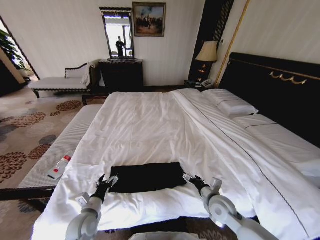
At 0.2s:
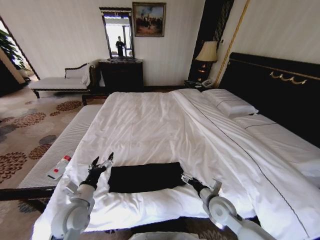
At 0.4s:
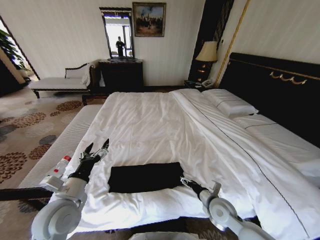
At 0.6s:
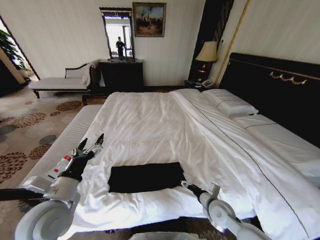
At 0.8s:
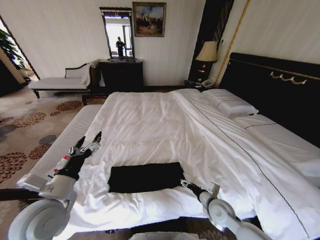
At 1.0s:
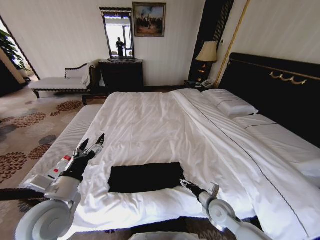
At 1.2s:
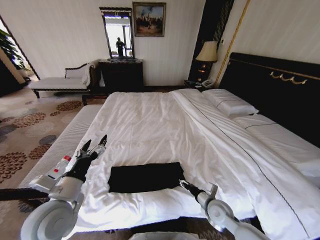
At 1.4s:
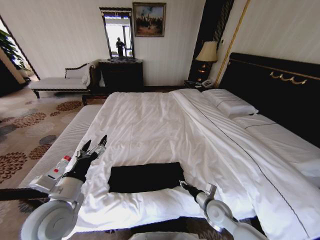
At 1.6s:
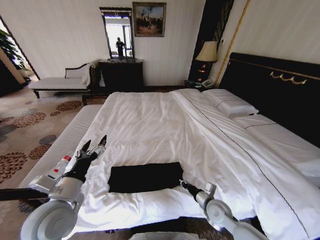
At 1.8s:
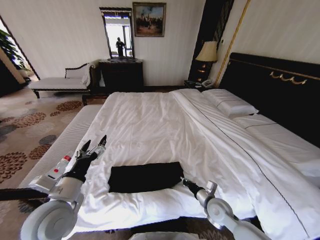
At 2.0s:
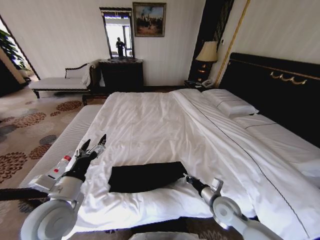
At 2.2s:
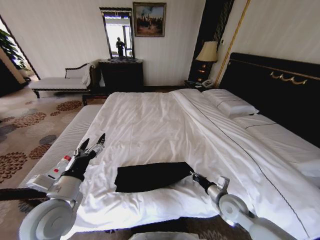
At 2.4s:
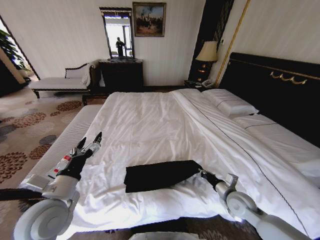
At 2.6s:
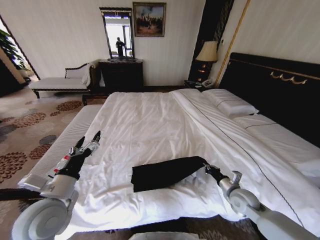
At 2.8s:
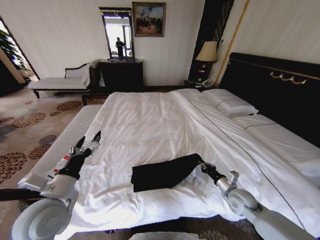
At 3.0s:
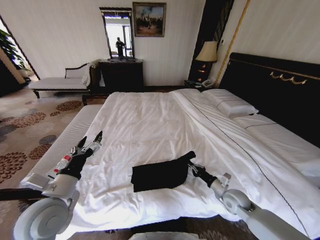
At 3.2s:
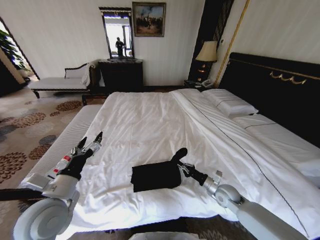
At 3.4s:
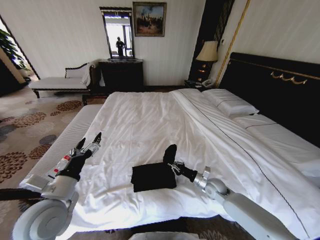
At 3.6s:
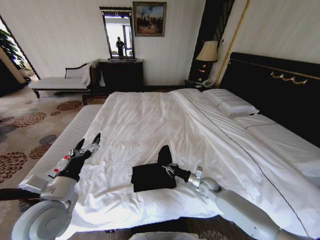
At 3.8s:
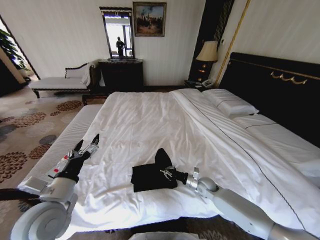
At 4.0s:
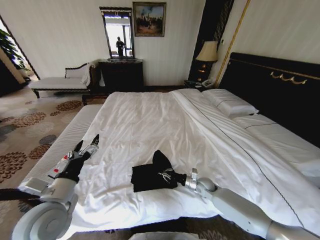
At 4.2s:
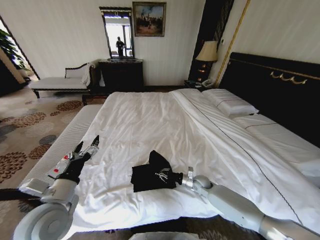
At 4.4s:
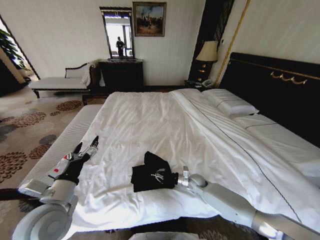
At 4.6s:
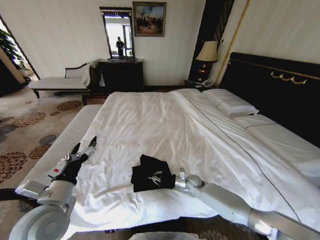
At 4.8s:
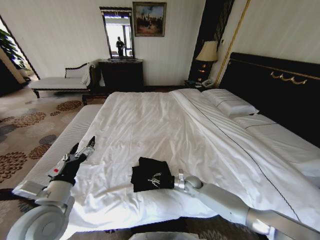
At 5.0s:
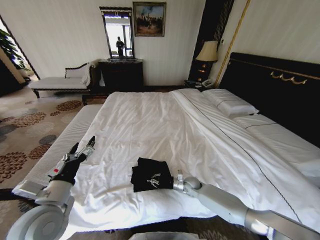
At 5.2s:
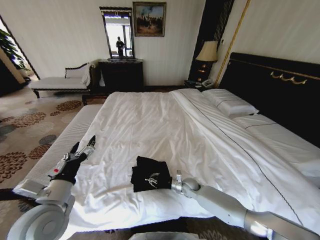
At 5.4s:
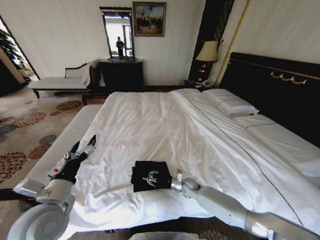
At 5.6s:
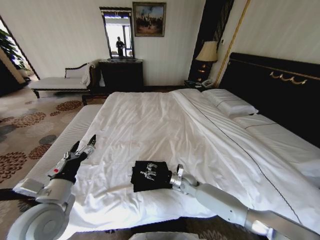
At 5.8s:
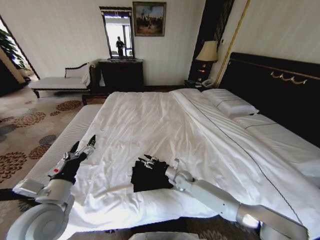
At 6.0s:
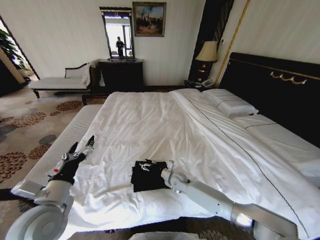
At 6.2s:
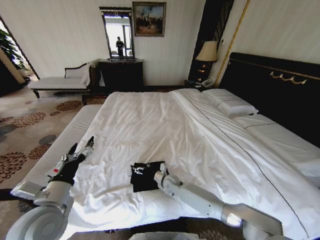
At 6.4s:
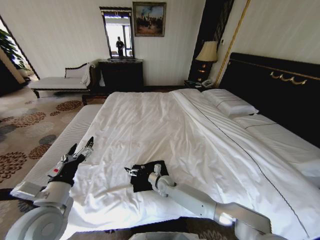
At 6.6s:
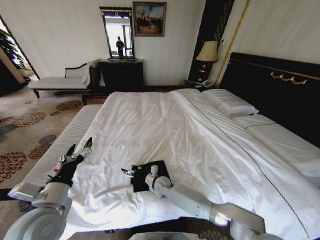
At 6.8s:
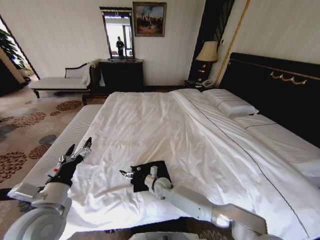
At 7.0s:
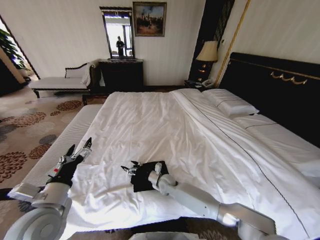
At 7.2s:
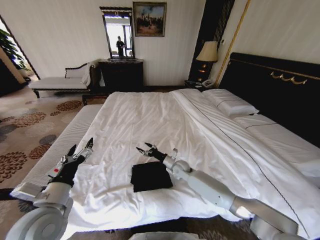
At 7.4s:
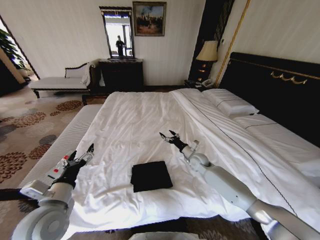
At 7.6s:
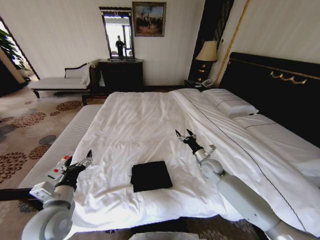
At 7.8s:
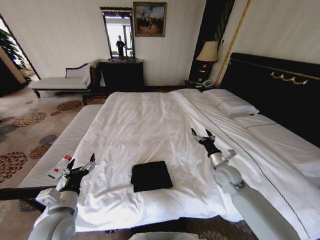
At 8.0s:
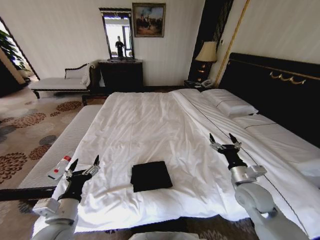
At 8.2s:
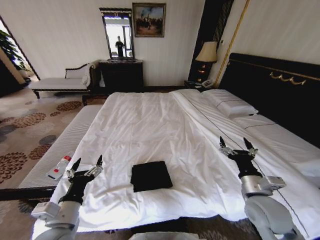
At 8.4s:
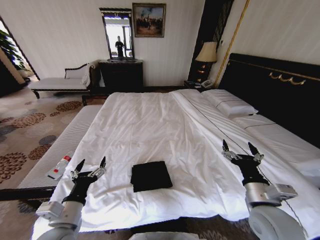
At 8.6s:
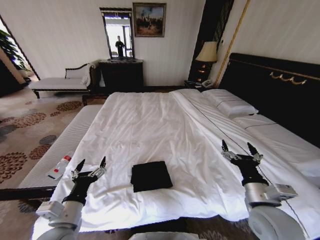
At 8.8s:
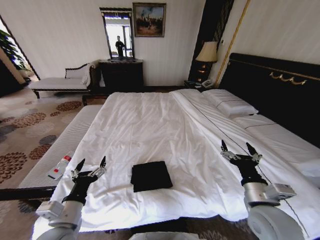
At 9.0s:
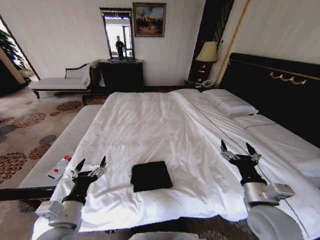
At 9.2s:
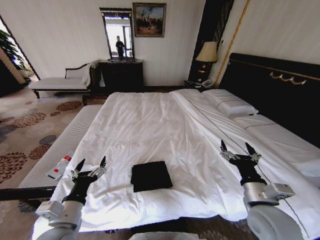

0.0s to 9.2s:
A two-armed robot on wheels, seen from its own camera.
Task of the whole recording: Fold the clothes on the bed.
0.0s to 1.6s: The right gripper closes up. The left gripper heads upward, covering roughly 20 cm.
1.6s to 3.0s: The right gripper goes some 10 cm to the right.
3.0s to 4.6s: The right gripper heads to the left, forward and downward, covering approximately 20 cm.
4.6s to 6.2s: The right gripper travels to the left by some 15 cm, and opens.
6.2s to 7.6s: The right gripper is displaced to the right and upward by some 20 cm.
7.6s to 9.2s: The left gripper heads backward, covering roughly 5 cm. The right gripper shifts roughly 25 cm backward and upward.

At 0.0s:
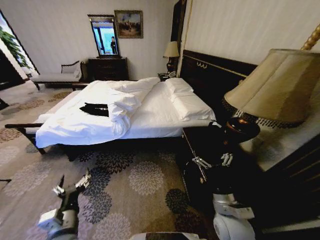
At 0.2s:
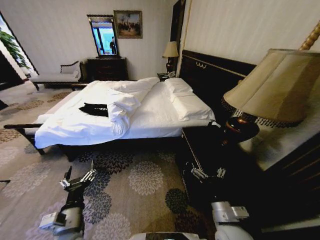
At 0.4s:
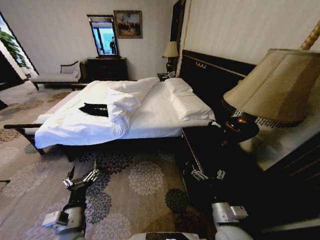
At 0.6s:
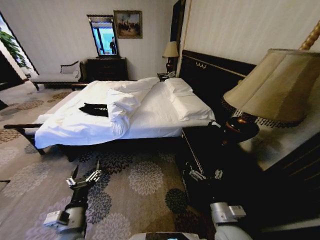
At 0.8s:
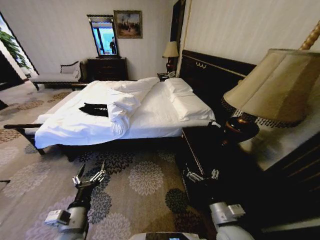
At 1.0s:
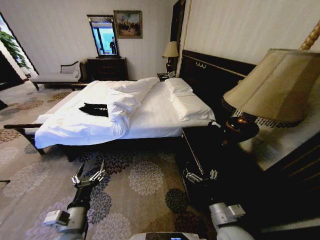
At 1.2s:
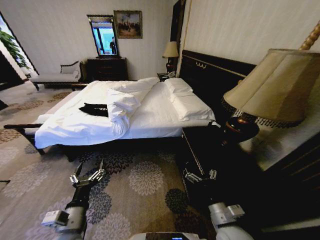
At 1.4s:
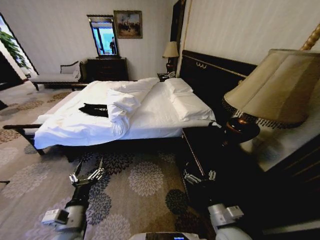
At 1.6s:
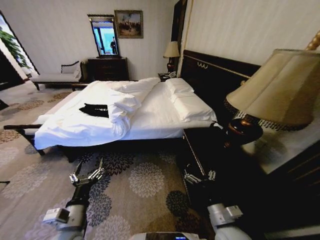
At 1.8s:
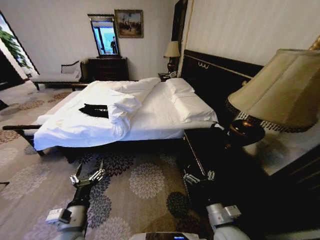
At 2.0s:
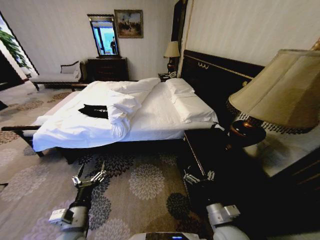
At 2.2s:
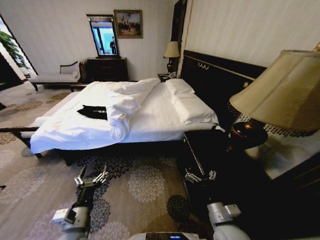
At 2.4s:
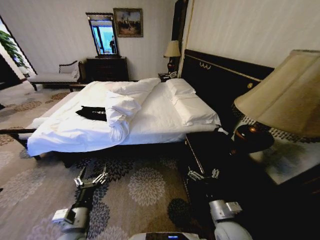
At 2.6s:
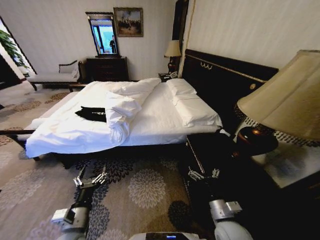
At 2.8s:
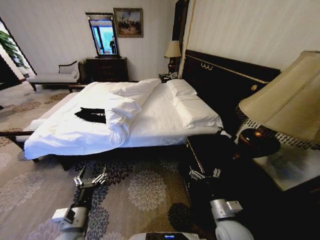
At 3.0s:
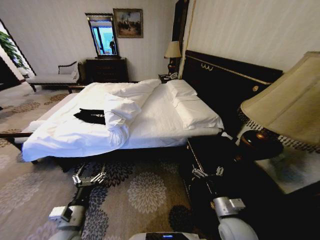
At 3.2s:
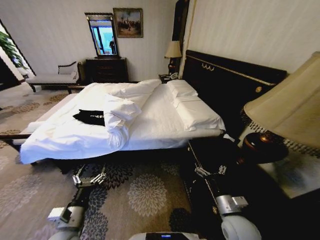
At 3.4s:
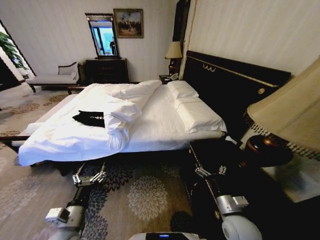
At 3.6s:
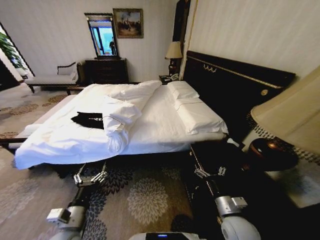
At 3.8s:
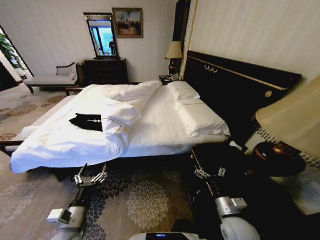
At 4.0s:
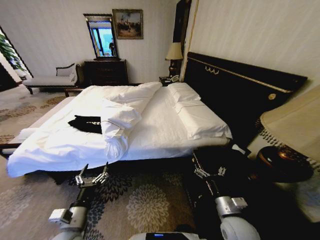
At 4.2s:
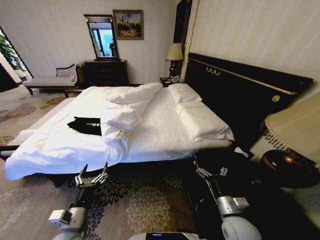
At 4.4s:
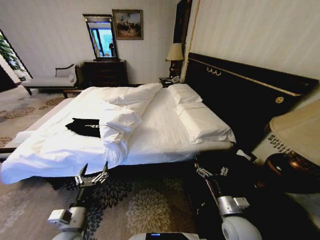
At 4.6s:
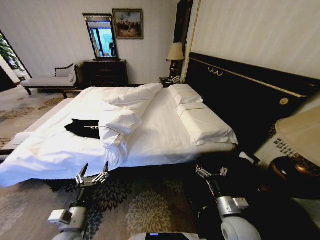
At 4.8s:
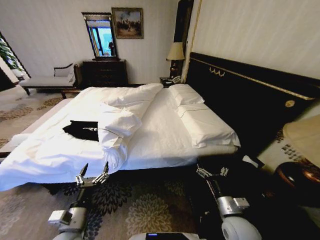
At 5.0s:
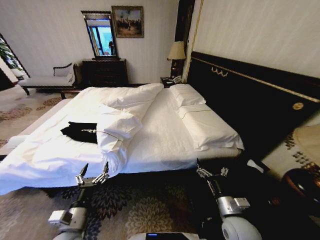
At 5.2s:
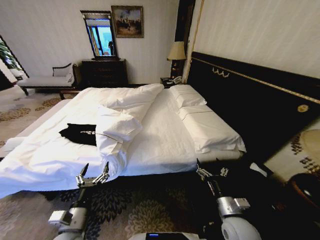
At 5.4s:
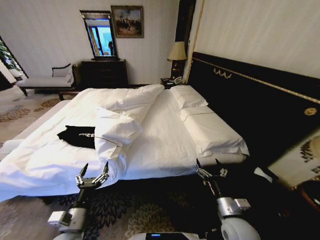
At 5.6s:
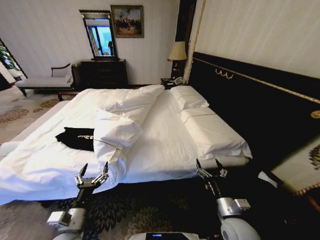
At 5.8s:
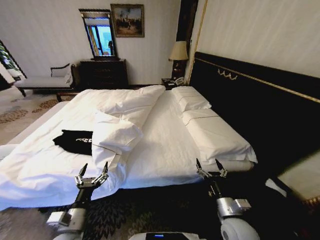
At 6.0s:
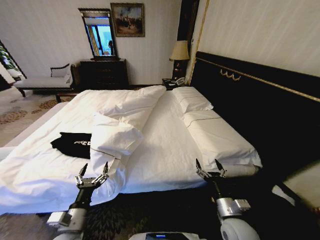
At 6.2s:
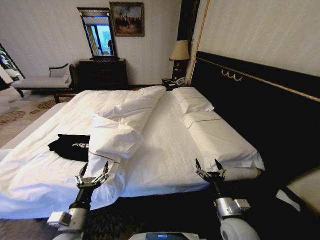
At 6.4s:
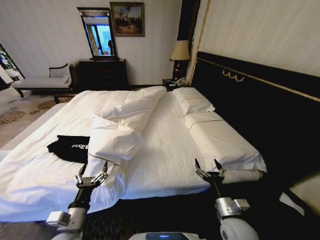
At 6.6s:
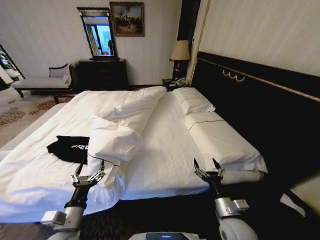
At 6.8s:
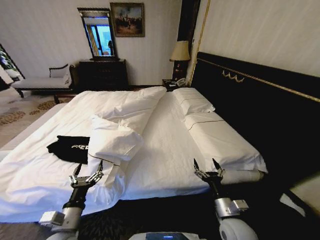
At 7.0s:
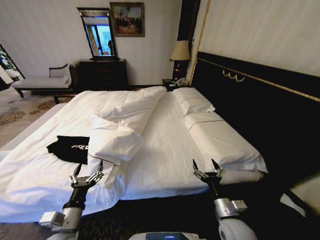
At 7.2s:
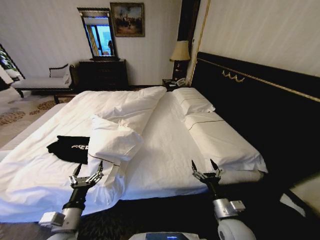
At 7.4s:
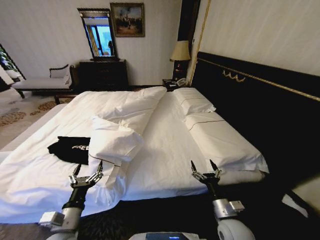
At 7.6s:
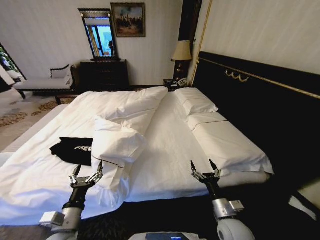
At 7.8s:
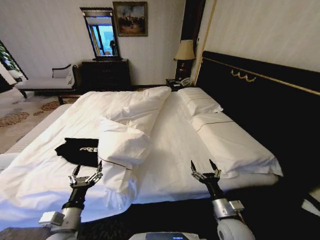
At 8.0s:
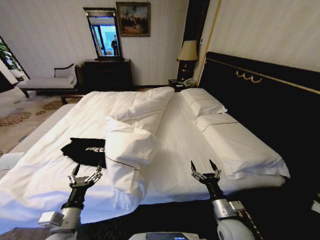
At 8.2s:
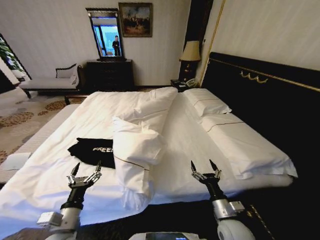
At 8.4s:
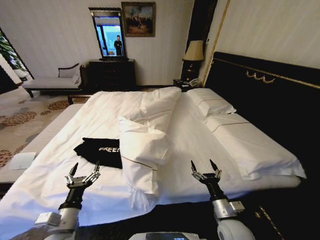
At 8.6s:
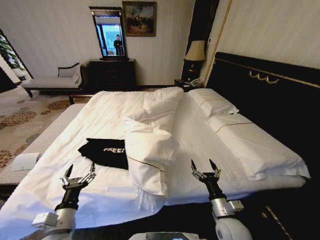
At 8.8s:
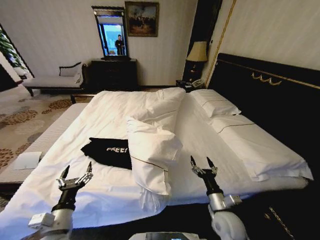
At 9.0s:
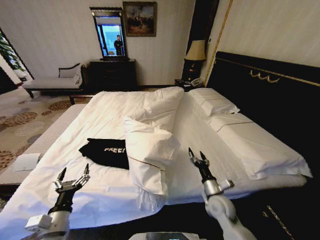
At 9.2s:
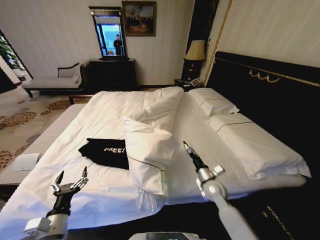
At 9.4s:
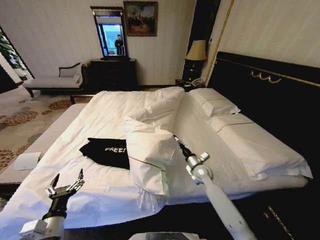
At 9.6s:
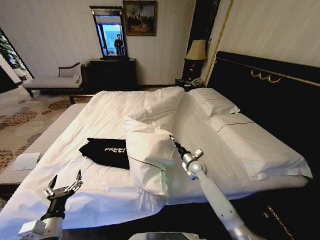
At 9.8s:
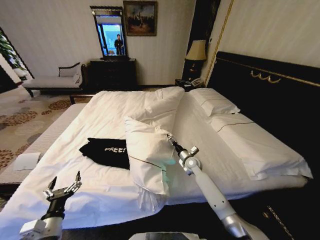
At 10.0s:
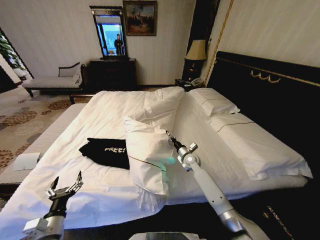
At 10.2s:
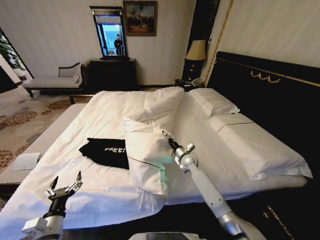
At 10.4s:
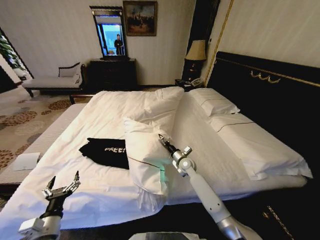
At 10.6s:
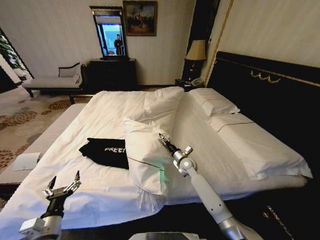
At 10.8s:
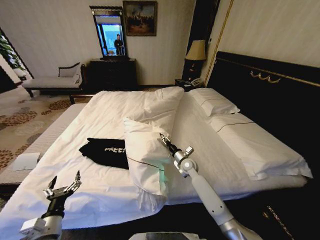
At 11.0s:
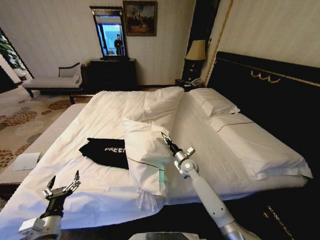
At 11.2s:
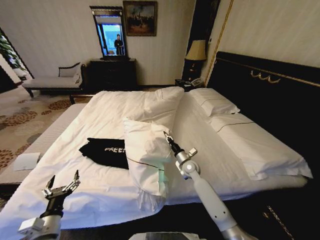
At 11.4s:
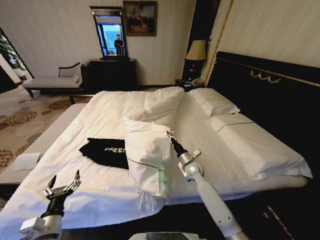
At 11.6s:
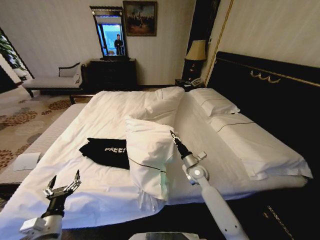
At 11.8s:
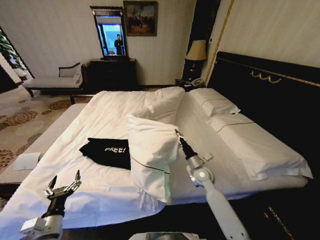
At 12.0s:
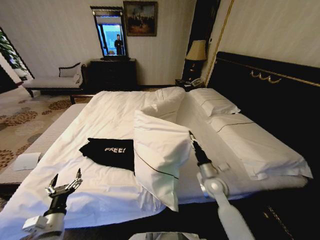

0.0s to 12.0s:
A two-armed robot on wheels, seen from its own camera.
Task of the whole recording: Fold the clothes on the bed.
7.6s to 9.0s: The right gripper heads forward, covering roughly 10 cm.
9.0s to 10.4s: The right gripper goes about 20 cm forward and to the left.
10.4s to 12.0s: The right gripper shifts roughly 15 cm backward and to the right, and closes its fingers.

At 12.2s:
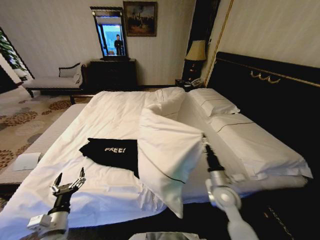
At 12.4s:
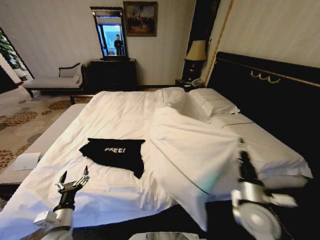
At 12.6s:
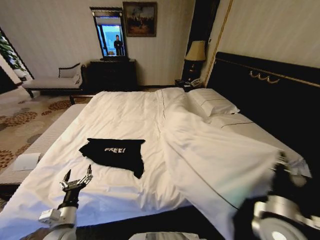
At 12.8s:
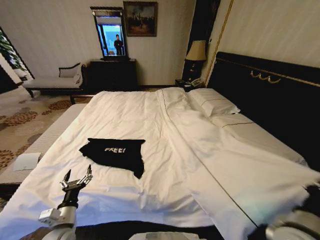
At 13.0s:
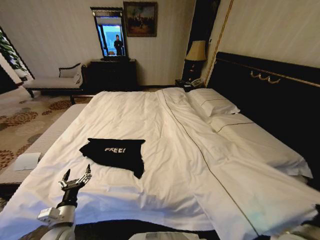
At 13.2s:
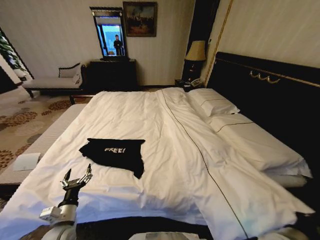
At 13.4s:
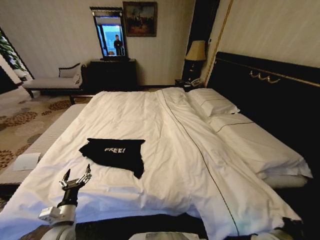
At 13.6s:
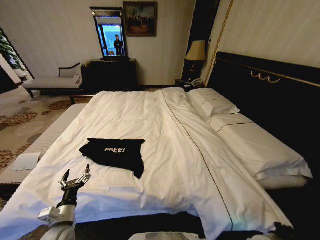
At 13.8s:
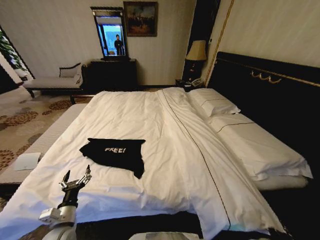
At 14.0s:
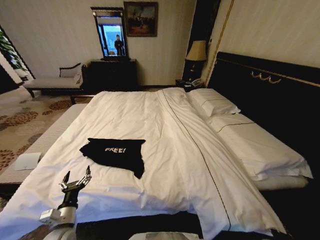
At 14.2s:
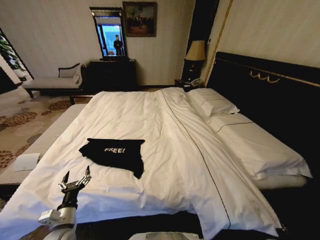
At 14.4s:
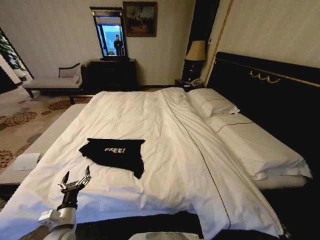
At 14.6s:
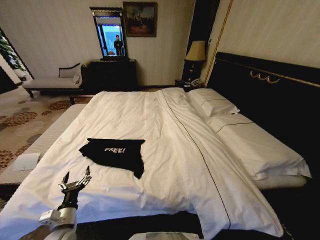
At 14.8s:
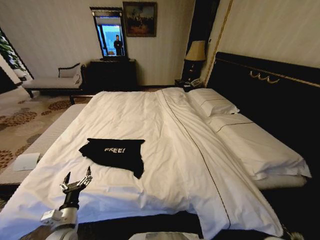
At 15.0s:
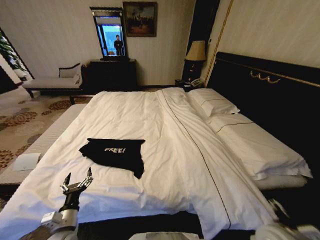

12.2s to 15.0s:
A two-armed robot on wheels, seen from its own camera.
Task of the whole recording: Fold the clothes on the bed.
12.2s to 13.6s: The right gripper moves to the right, downward and backward, approximately 25 cm.
13.6s to 15.0s: The right gripper heads upward and to the left, covering approximately 20 cm, and opens up.
